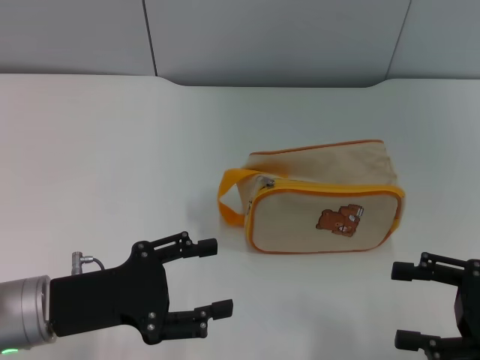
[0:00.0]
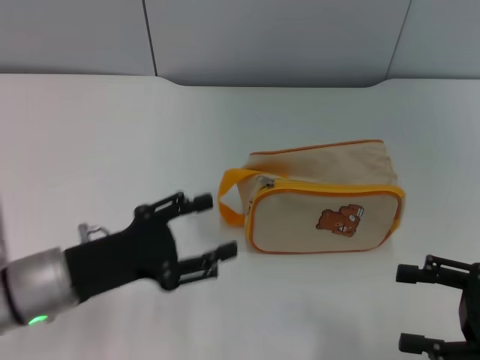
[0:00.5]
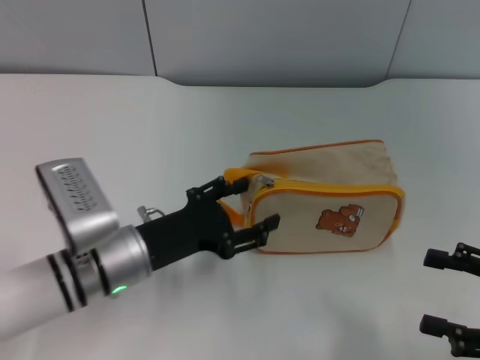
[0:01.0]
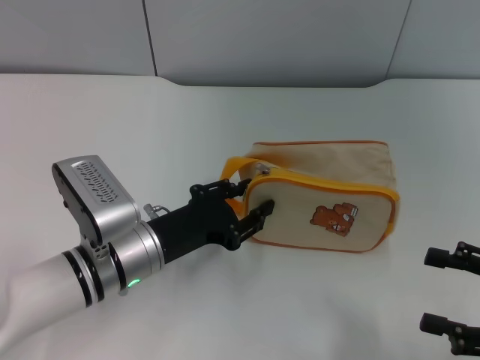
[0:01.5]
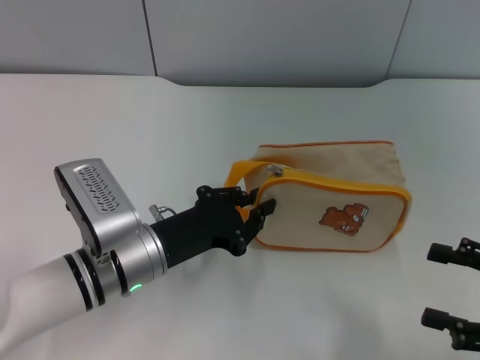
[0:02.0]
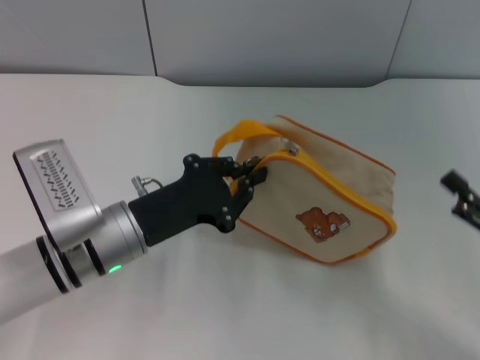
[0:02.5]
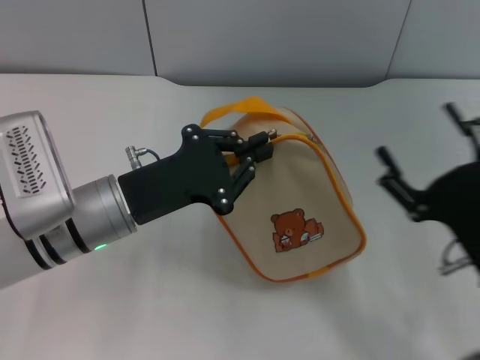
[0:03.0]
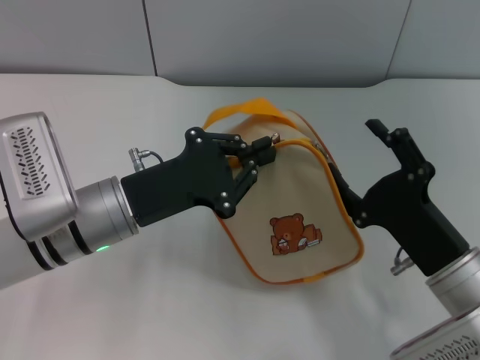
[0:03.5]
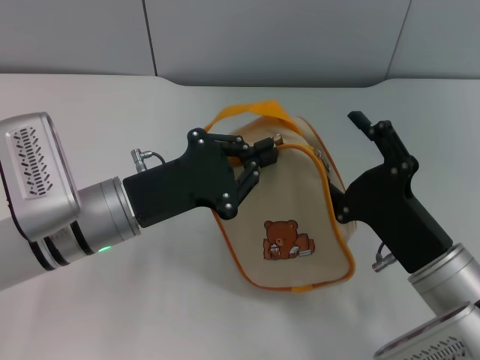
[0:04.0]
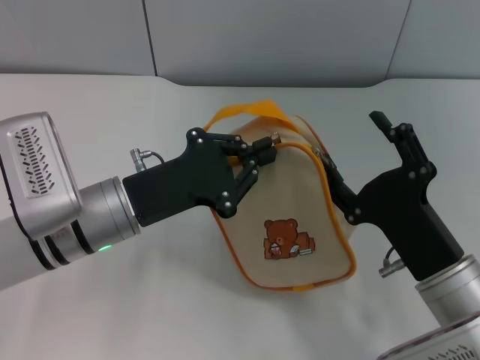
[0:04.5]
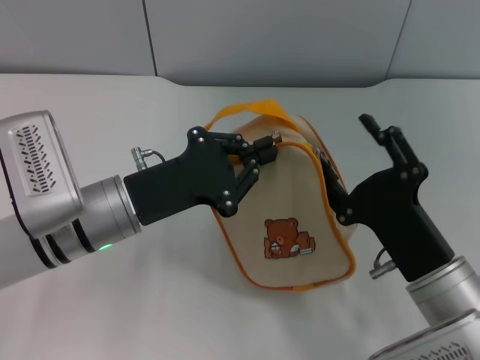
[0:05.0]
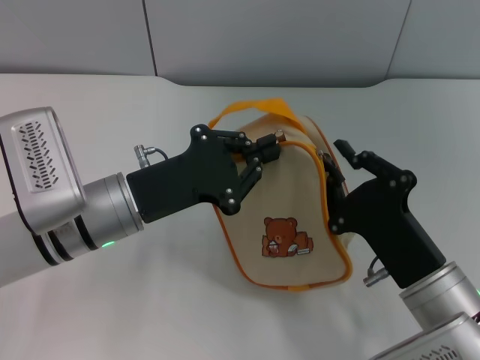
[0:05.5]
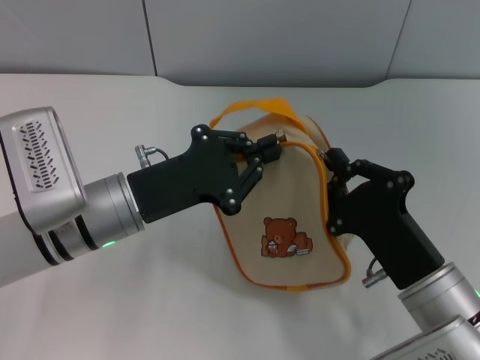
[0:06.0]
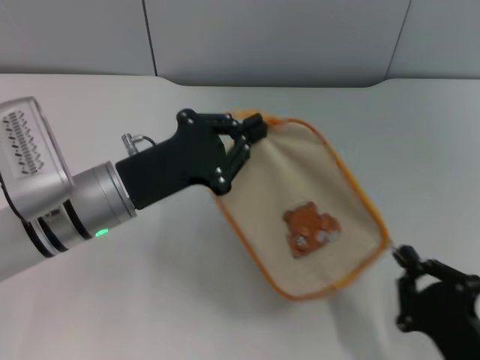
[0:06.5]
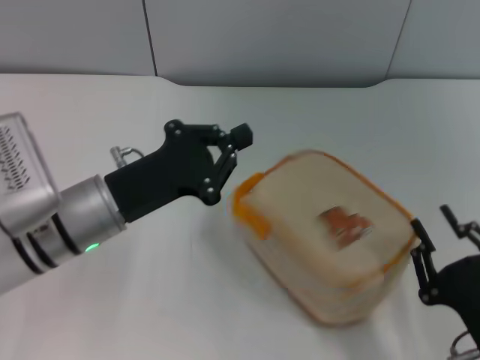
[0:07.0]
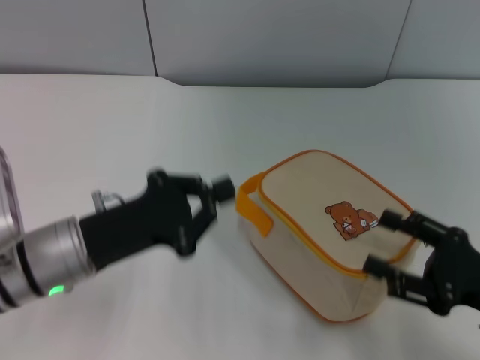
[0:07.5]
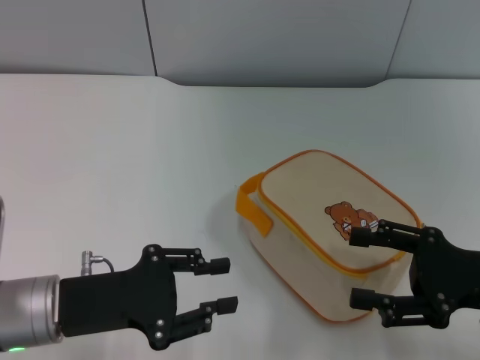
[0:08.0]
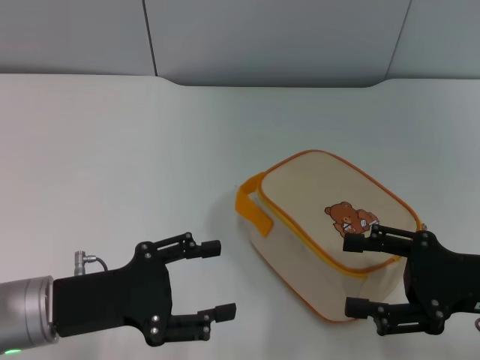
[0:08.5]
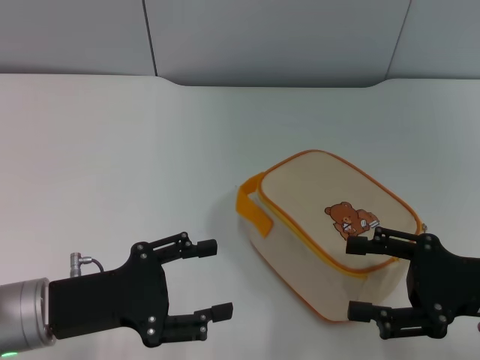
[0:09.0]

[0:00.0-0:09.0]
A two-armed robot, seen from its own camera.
Step, 0:00.0 to 0:02.5: Pick up the bag with left gripper.
Step, 0:03.0 to 0:07.0: Unzip the zipper of bag with right gripper.
0:00.0 to 0:02.0: The left gripper moves to the right and forward, some 10 cm, and closes up.
0:02.0 to 0:04.5: The right gripper shifts about 15 cm to the left; the left gripper goes about 5 cm upward.
0:04.5 to 0:07.0: The right gripper moves backward, about 10 cm, and closes up.
0:07.0 to 0:09.0: The right gripper is displaced forward, upward and to the right by about 15 cm, and opens up. The left gripper travels backward and to the left by approximately 10 cm, and opens.

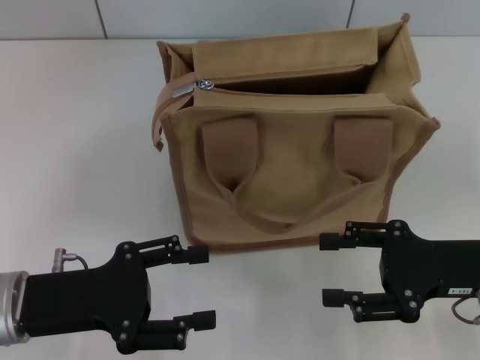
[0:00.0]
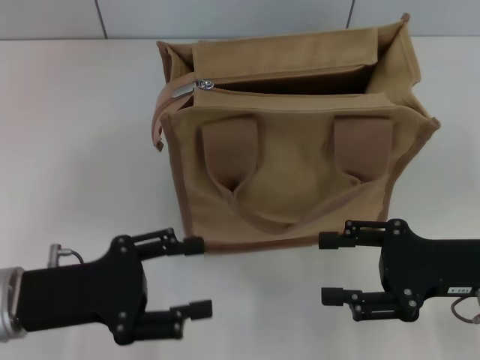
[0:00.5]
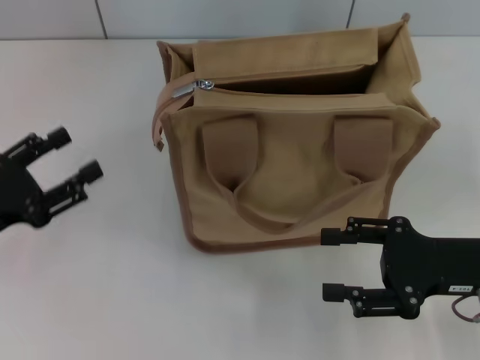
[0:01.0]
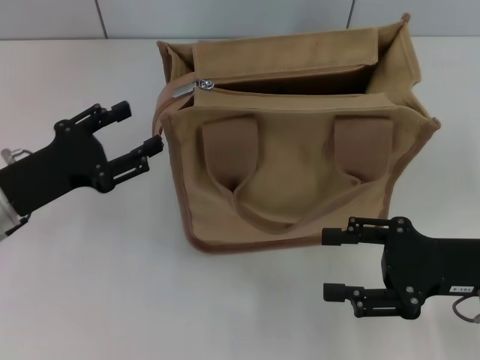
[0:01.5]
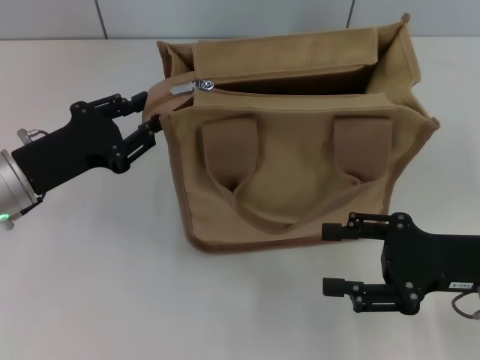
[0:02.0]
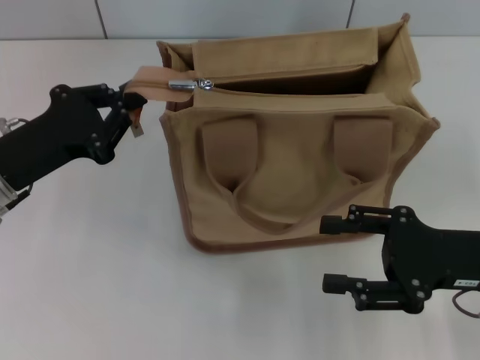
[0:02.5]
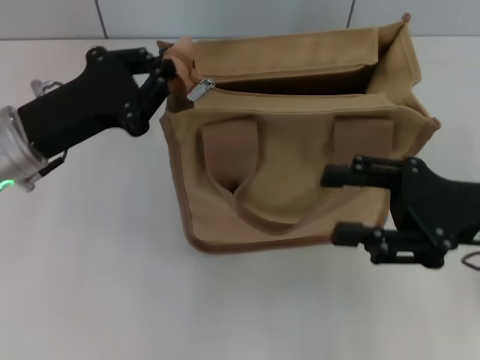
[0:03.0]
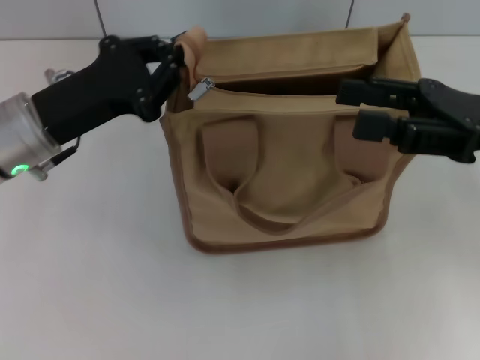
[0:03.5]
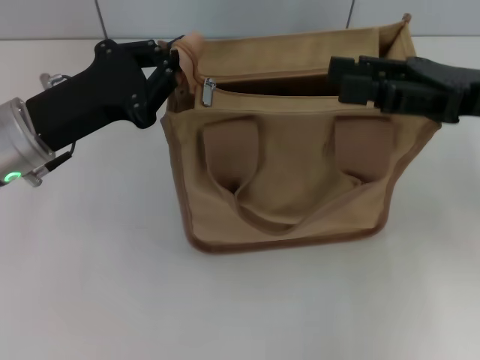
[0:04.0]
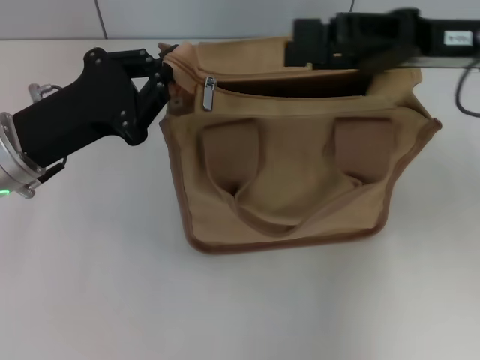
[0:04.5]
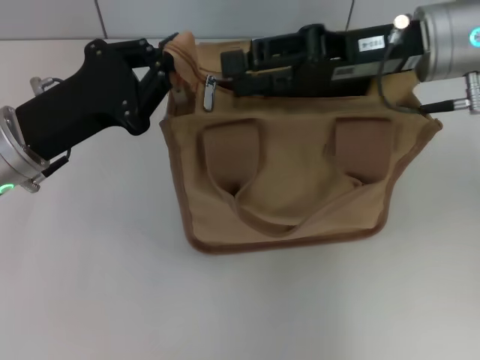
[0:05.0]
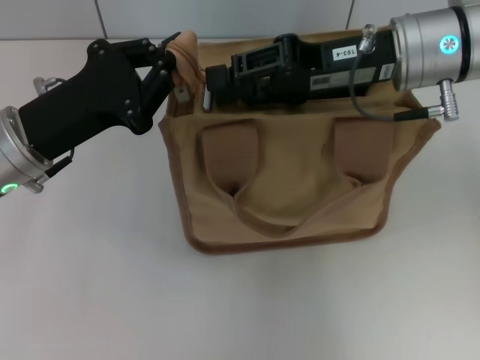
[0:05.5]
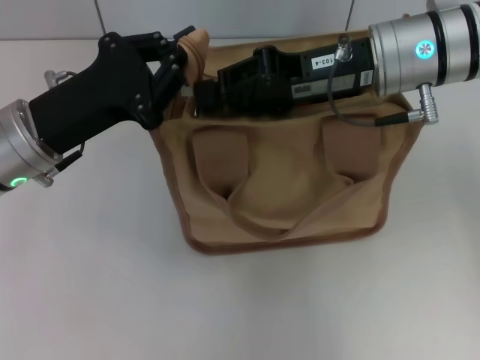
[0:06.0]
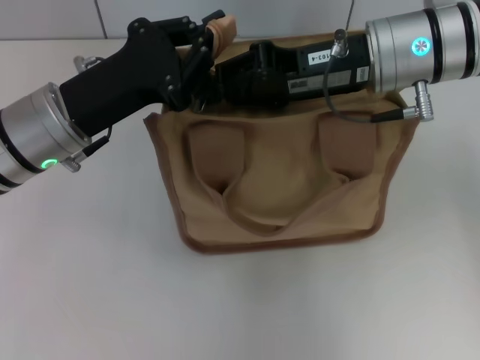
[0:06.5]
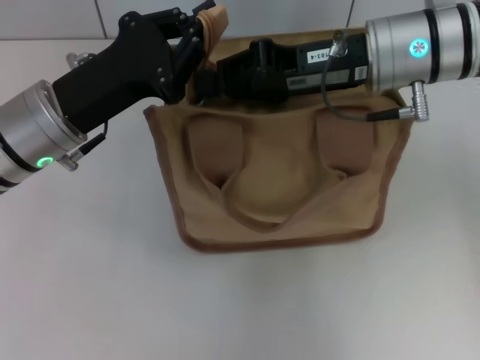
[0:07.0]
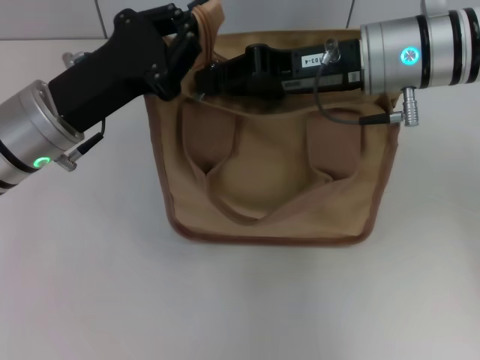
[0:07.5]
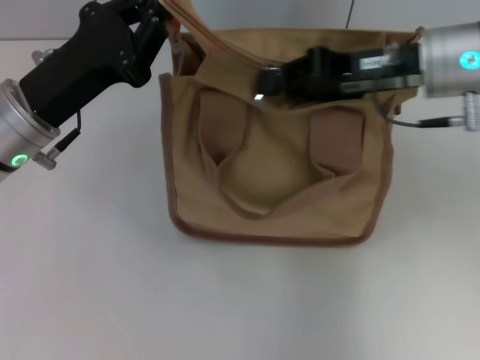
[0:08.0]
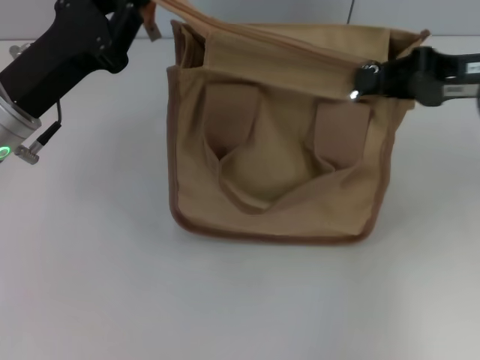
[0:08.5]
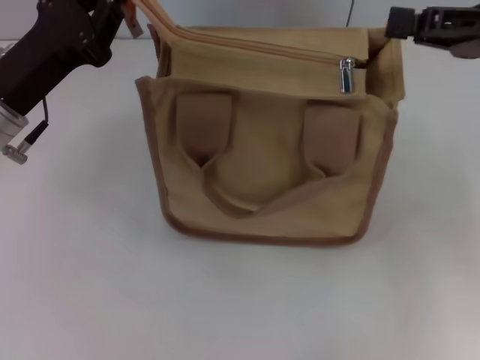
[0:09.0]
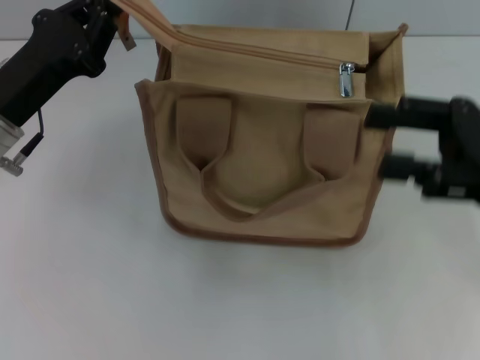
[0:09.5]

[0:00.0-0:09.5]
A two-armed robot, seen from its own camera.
Step, 0:00.0 to 0:09.0: Pull up the zipper with your right hand.
0:00.0 to 0:02.0: The left gripper moves forward, some 10 cm.
0:02.0 to 0:04.0: The left gripper shifts by some 5 cm, and closes up; the right gripper goes some 15 cm upward and forward.
0:04.0 to 0:05.5: The right gripper travels to the left and forward by roughly 10 cm.
0:05.5 to 0:07.5: The right gripper closes up.
0:07.5 to 0:09.5: The right gripper moves to the right and backward, about 15 cm, and opens its fingers; the left gripper shifts by about 5 cm.

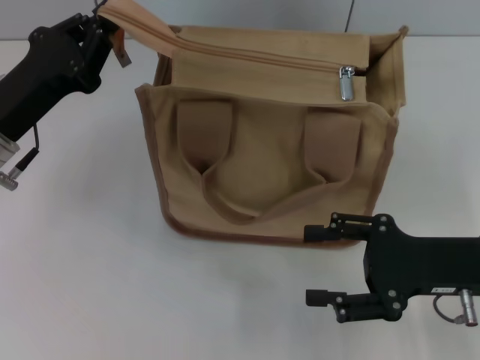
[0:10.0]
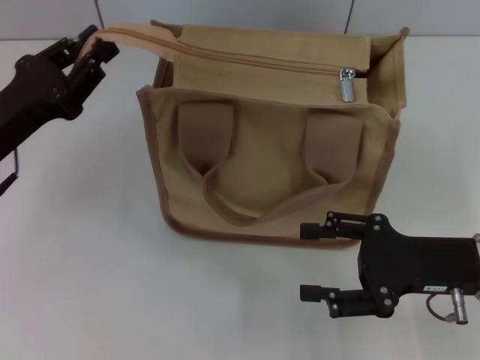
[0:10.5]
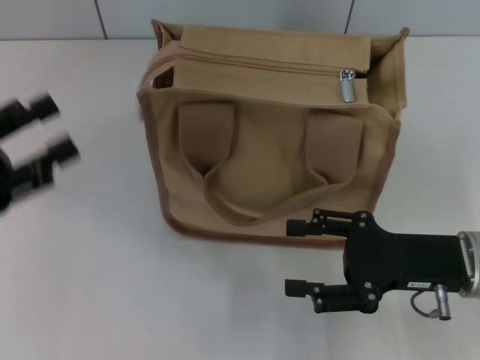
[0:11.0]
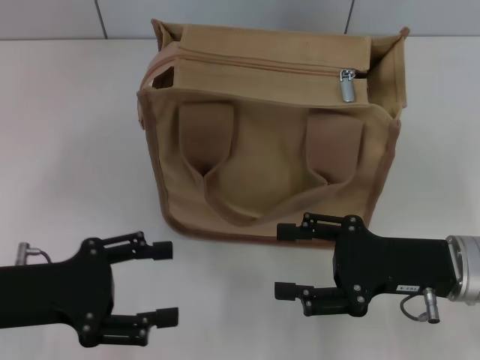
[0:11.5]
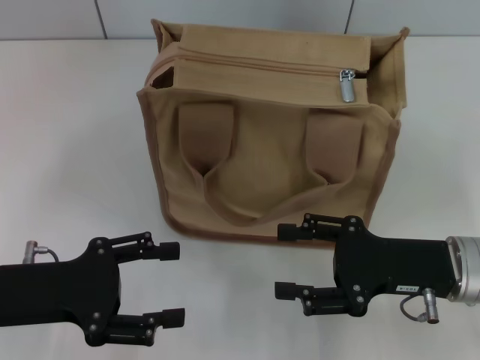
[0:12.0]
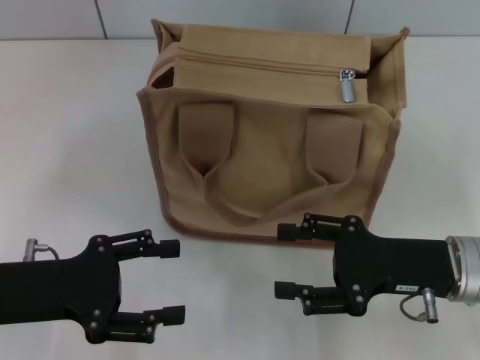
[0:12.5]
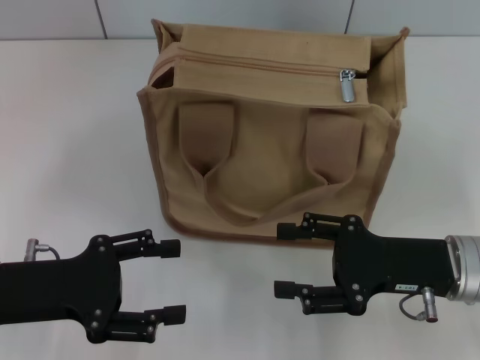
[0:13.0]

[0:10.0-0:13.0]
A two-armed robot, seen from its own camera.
0:10.0 to 0:11.5: The left gripper travels backward by about 10 cm, and opens its fingers.
0:11.5 to 0:13.0: The two grippers keep their place.

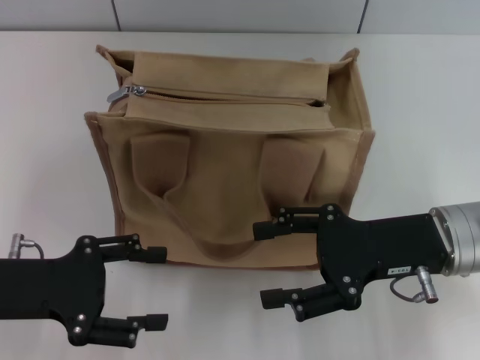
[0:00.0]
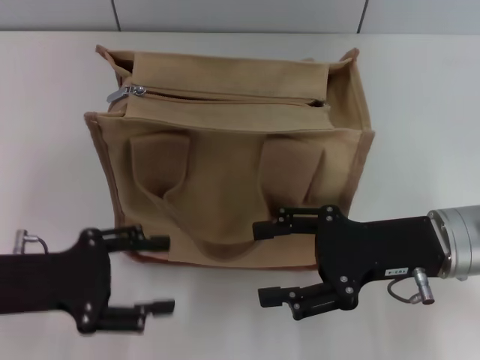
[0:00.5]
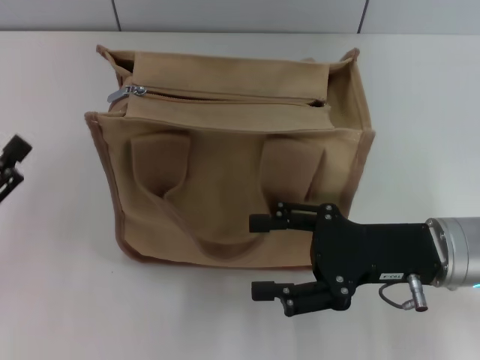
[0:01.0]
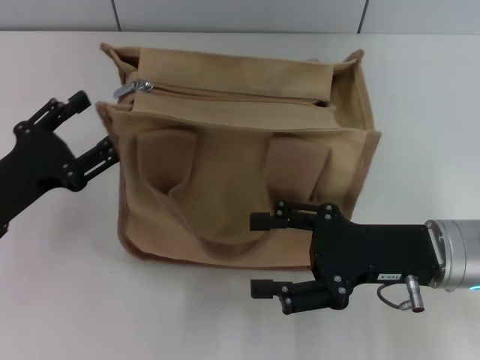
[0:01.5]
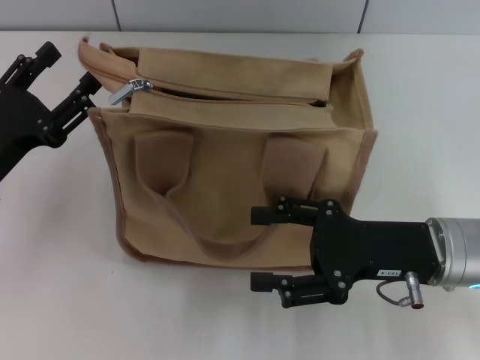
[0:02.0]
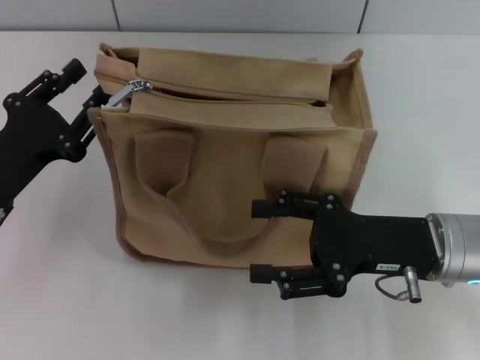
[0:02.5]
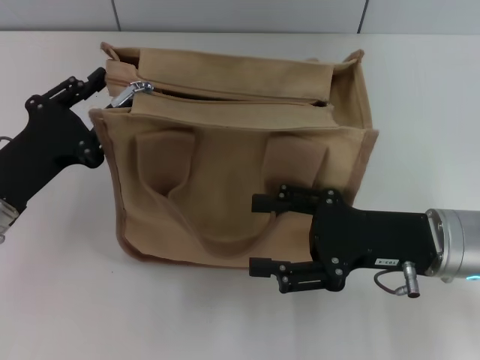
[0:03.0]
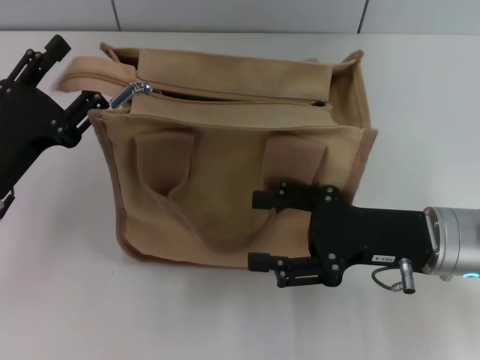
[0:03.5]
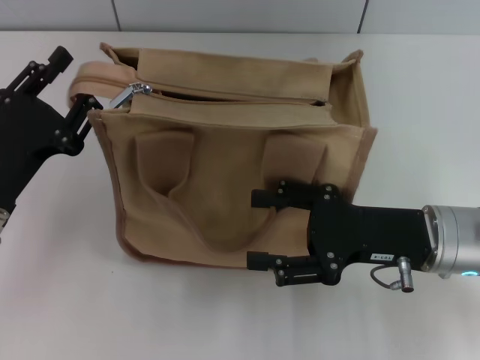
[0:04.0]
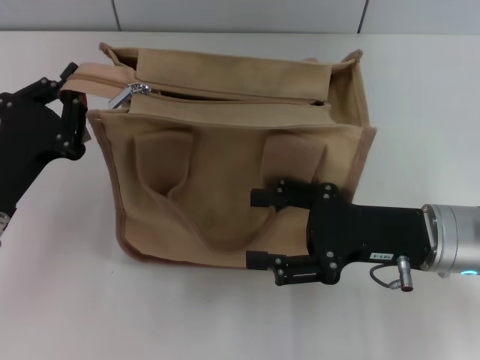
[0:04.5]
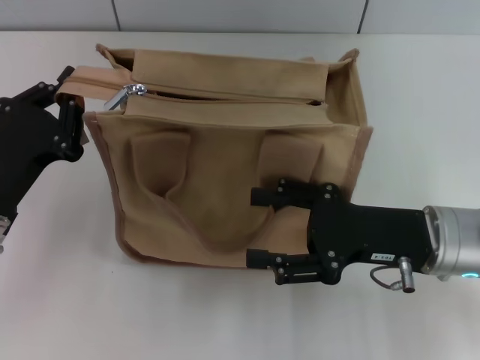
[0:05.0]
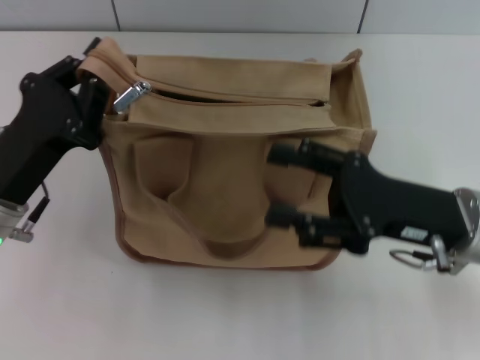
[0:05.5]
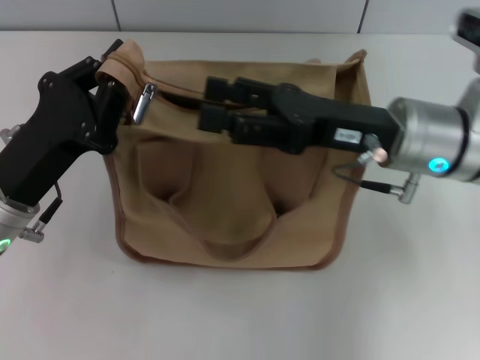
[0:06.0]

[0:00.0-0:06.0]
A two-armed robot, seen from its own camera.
0:02.0 to 0:04.0: The left gripper closes and opens again.
0:04.0 to 0:06.0: The right gripper heads upward and forward, covering some 10 cm. The left gripper closes.
